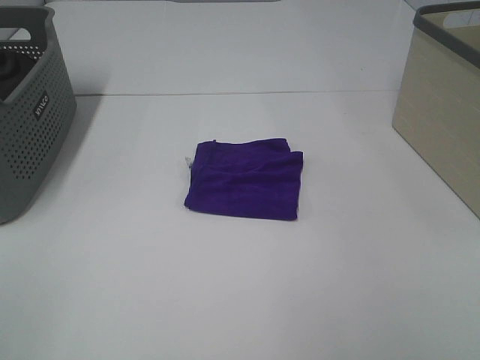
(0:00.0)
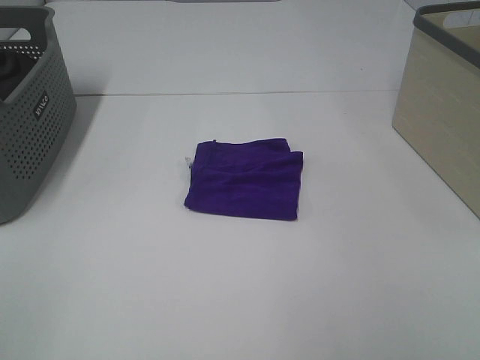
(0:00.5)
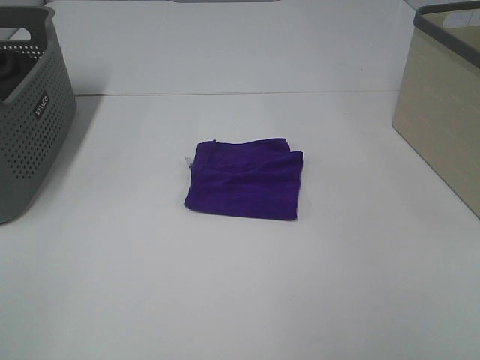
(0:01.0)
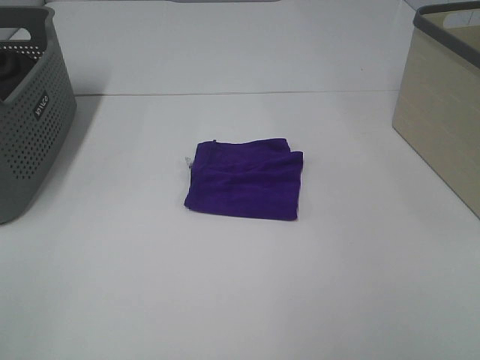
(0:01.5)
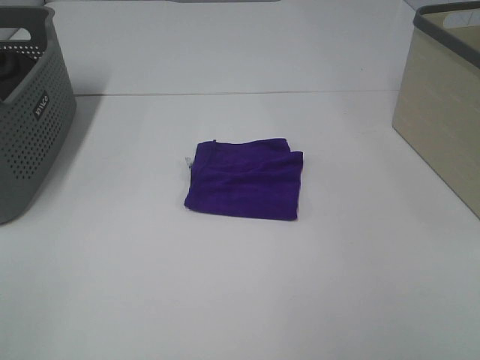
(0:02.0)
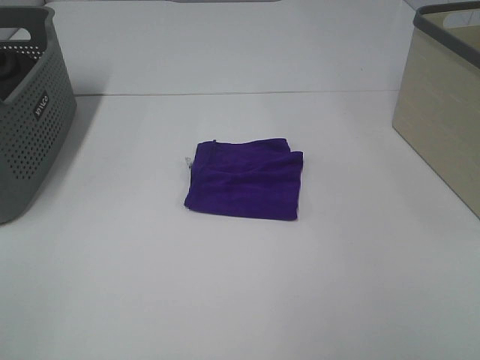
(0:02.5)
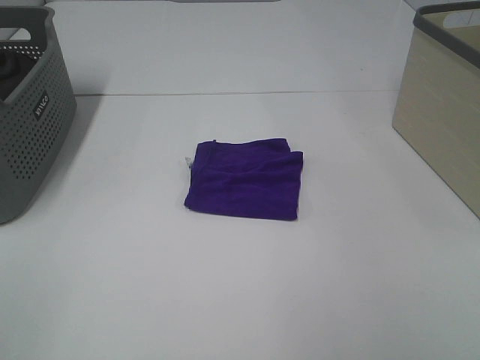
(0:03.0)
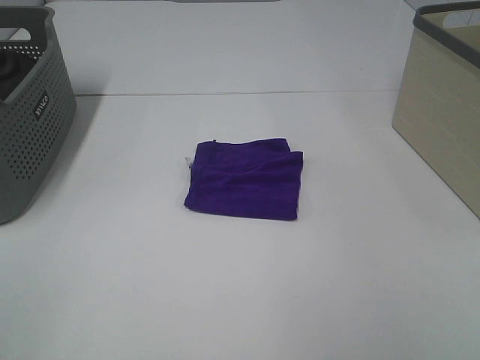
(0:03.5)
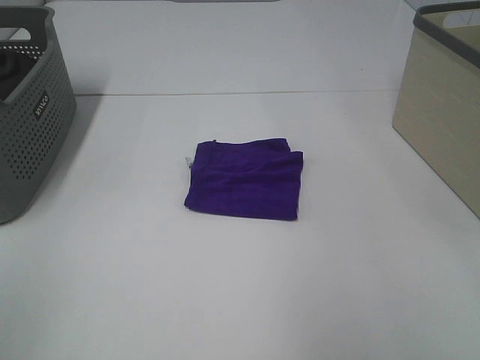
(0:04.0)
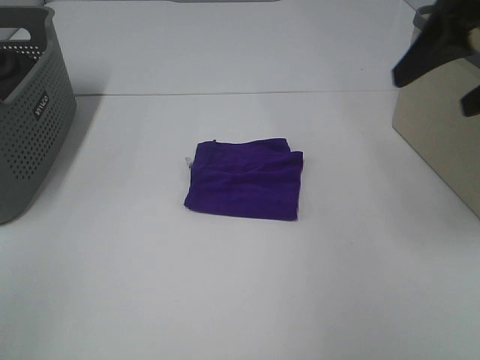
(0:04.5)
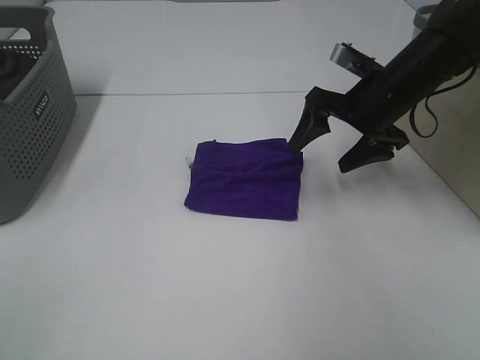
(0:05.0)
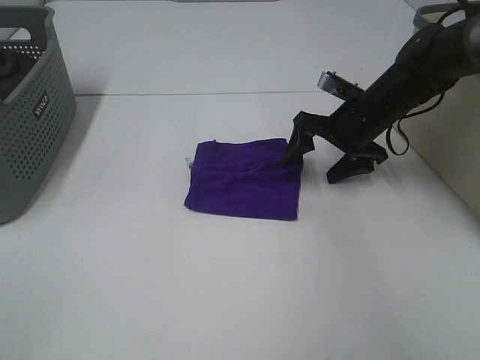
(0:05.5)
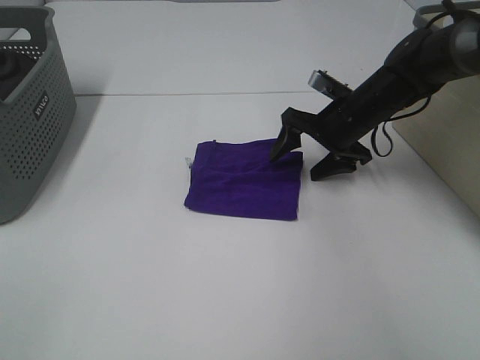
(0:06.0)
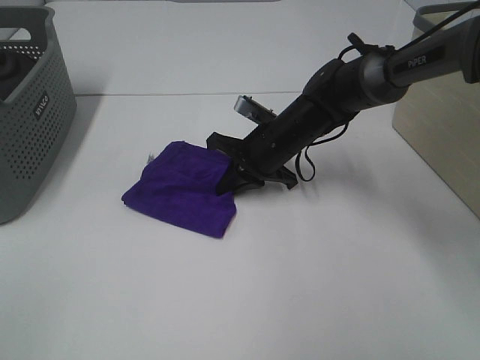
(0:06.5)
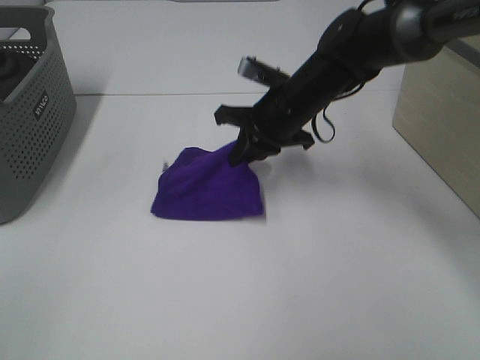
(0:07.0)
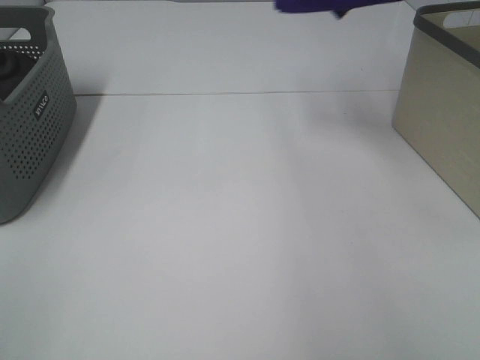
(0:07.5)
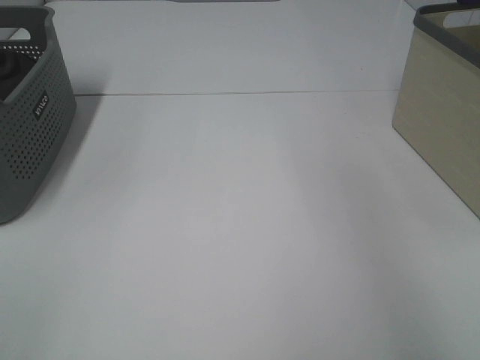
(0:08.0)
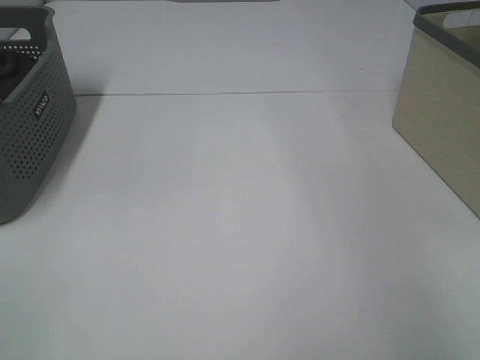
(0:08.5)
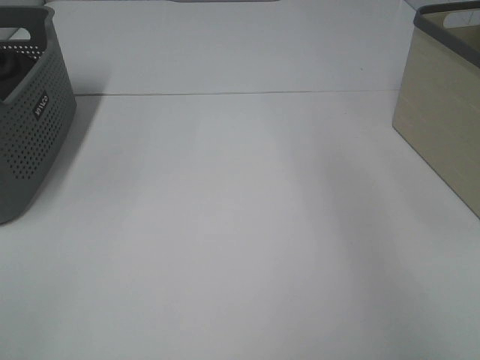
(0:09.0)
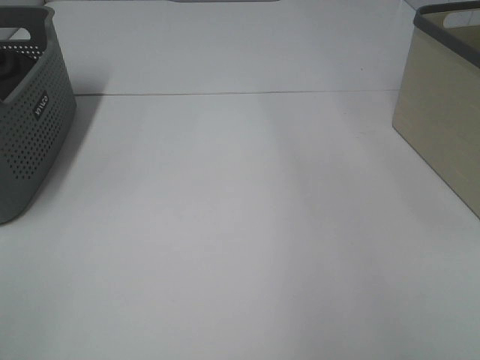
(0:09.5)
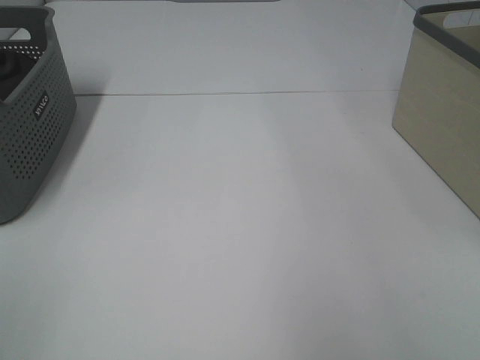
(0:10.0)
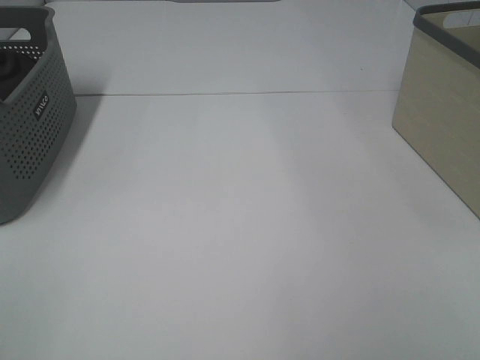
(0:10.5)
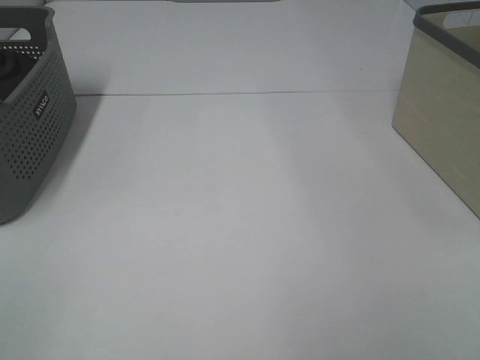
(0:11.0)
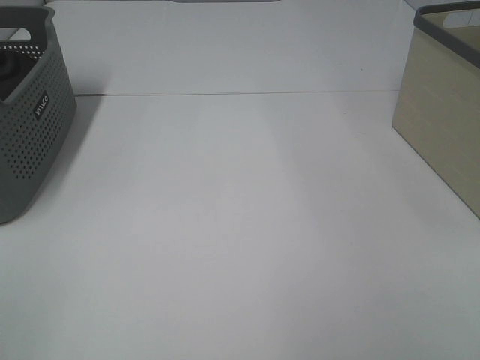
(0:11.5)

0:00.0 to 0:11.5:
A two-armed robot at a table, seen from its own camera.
Step, 0:00.0 to 0:06.5: Right hand: grab the folded purple towel.
Step, 0:07.0 to 0:08.5: Right hand: place the purple towel in right basket.
0:00.0 to 0:02.0: The two grippers keep their place.
0:04.0 to 0:06.0: The right gripper shifts approximately 40 cm downward and forward.
0:06.0 to 0:07.5: The right gripper goes approximately 35 cm upward, and closes its fingers.
0:07.5 to 0:09.5: The right gripper goes to the right and returns, roughly 15 cm each way, and opens its fingers.

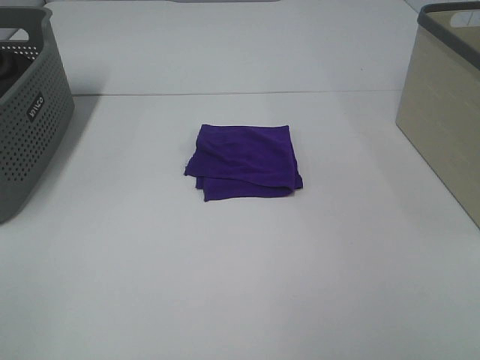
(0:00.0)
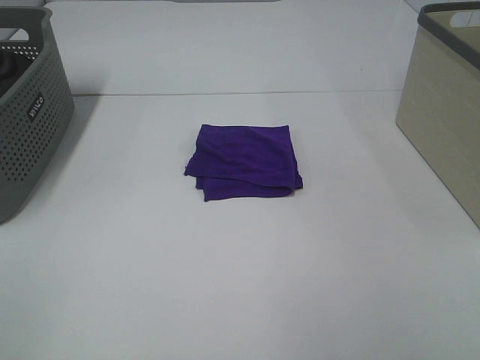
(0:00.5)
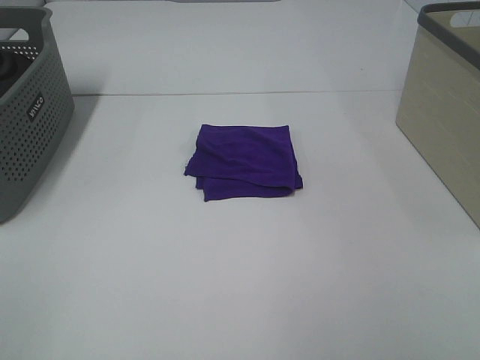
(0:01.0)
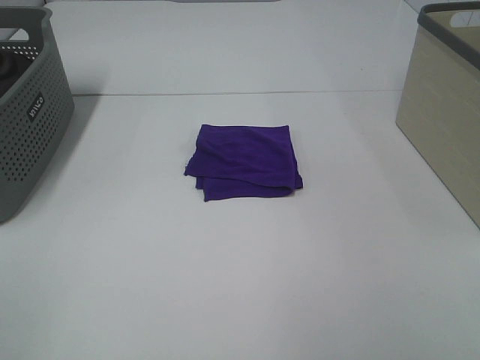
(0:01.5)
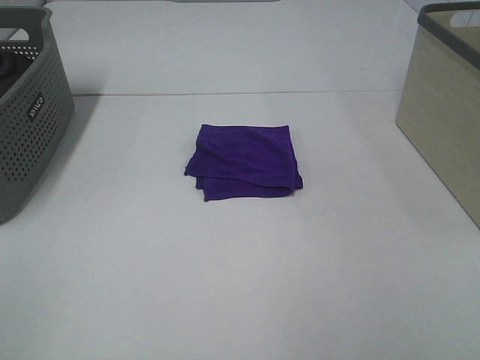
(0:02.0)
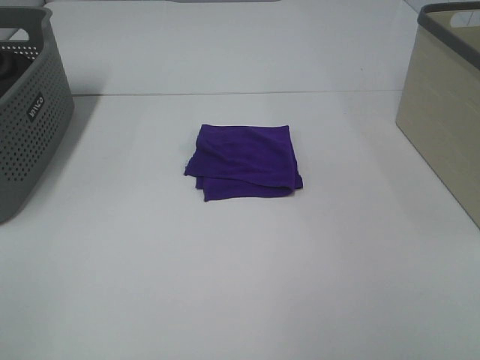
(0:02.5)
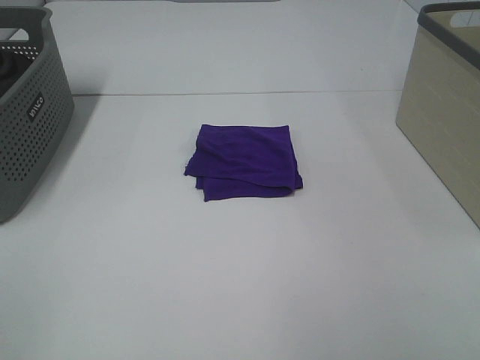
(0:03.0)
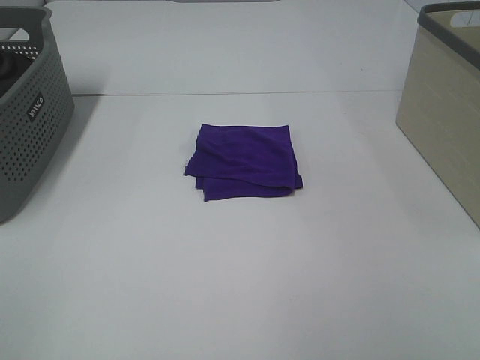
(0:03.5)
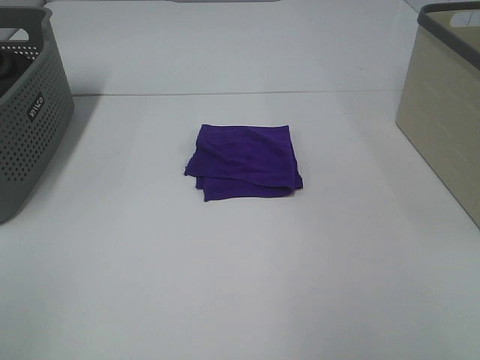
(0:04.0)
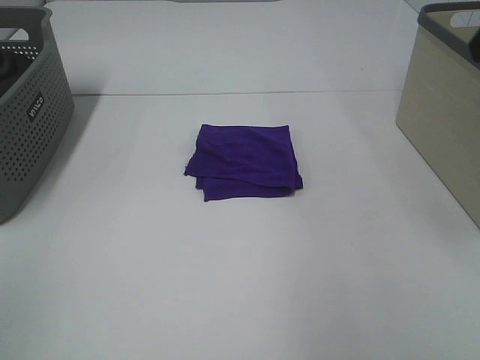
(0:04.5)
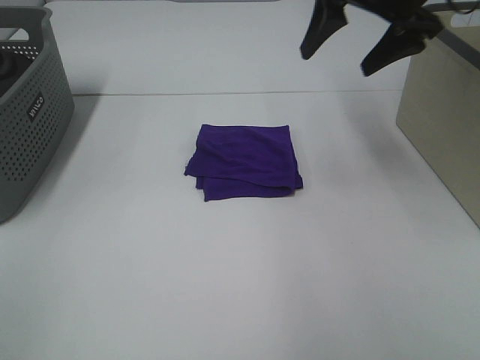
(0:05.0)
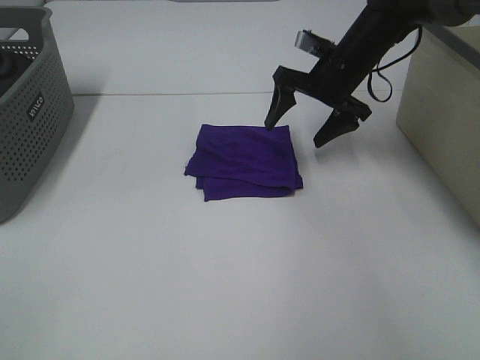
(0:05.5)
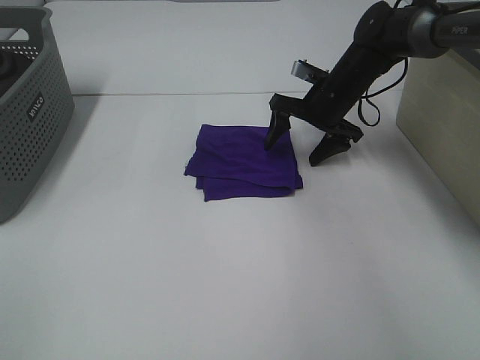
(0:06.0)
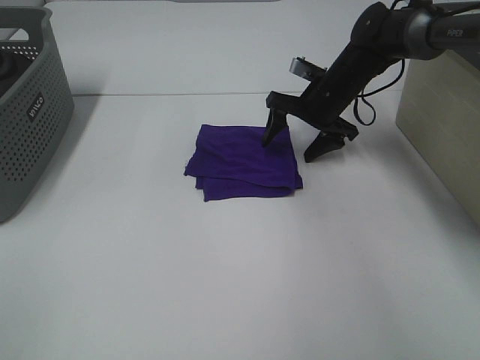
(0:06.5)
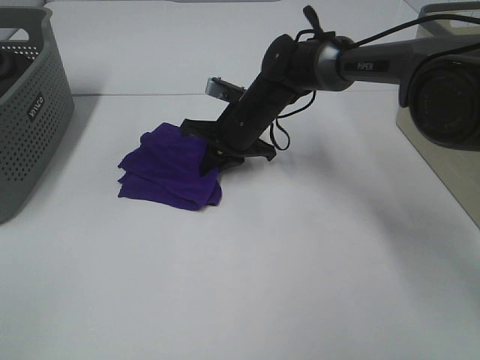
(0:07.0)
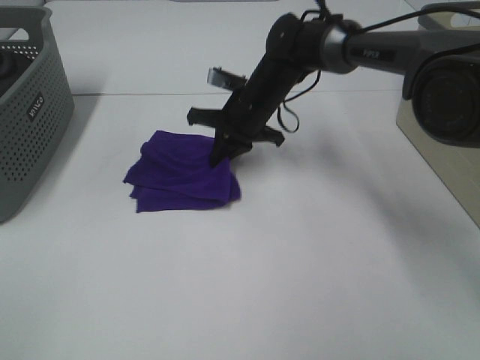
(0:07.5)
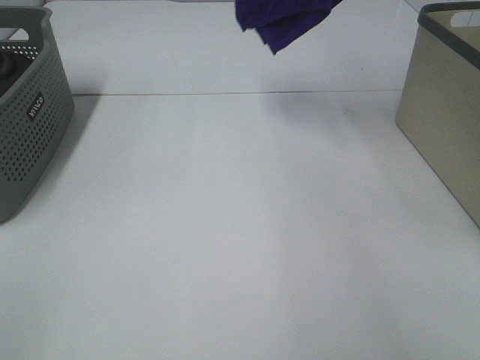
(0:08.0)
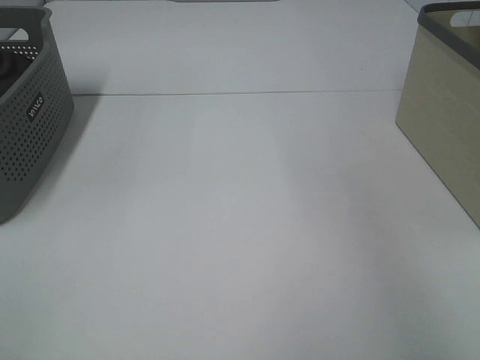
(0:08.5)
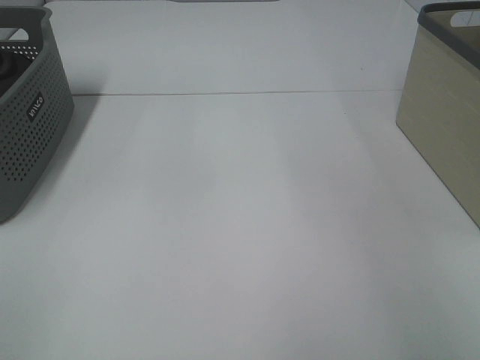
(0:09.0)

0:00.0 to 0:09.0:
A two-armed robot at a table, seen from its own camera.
Step, 0:00.0 to 0:07.0: Right hand: grab the folded purple towel.
0:00.0 to 0:02.0: Neither gripper changes place.
0:04.5 to 0:07.0: The right gripper goes roughly 40 cm downward, to the left and forward, and closes up.
0:07.0 to 0:09.0: The right gripper shifts some 50 cm to the right and upward, and opens.

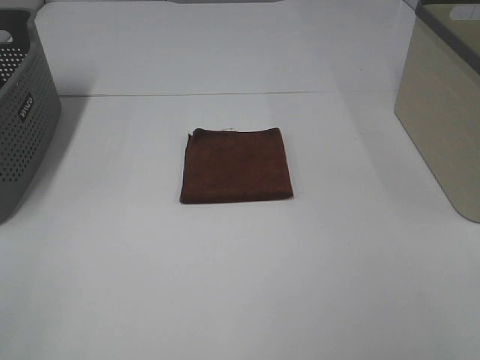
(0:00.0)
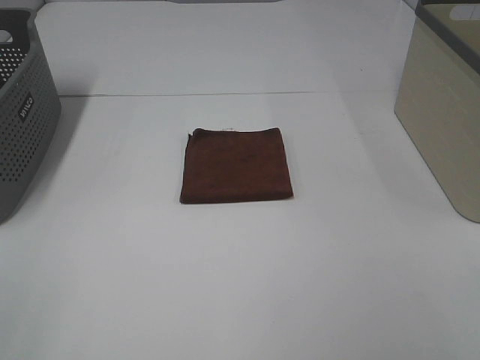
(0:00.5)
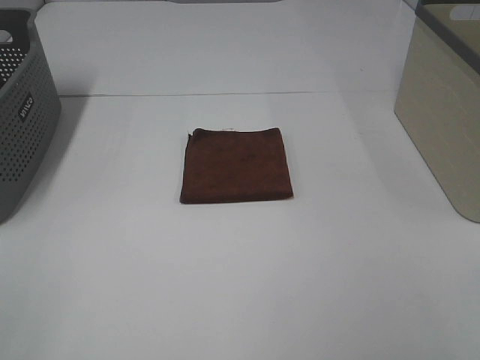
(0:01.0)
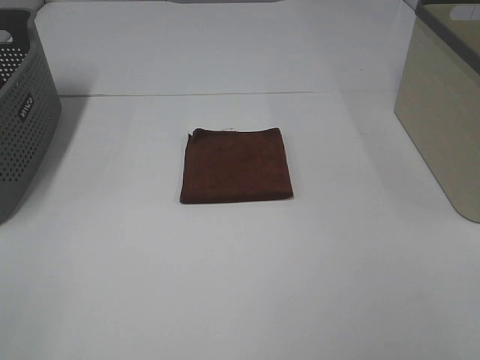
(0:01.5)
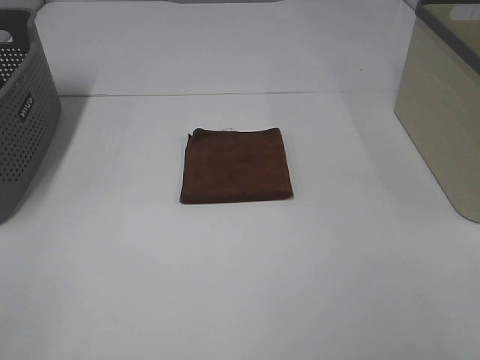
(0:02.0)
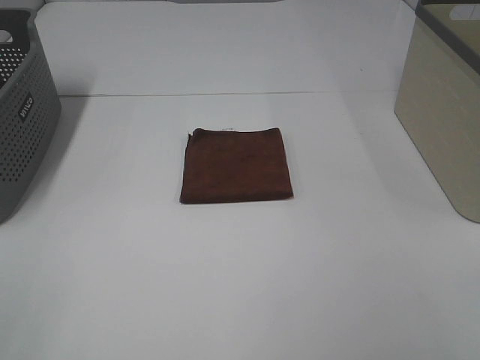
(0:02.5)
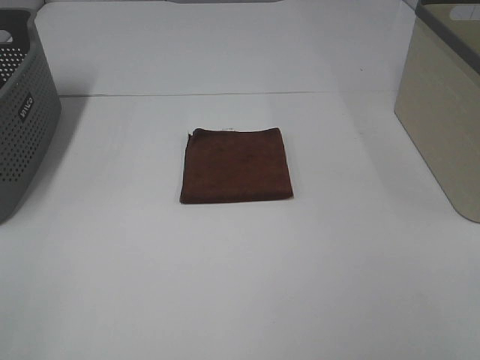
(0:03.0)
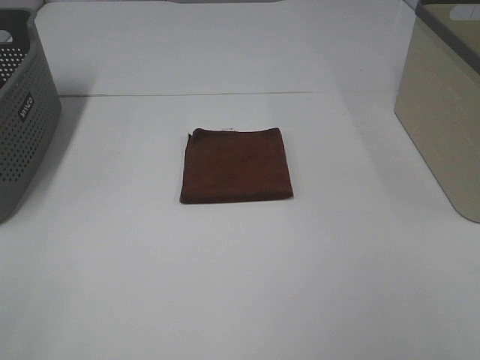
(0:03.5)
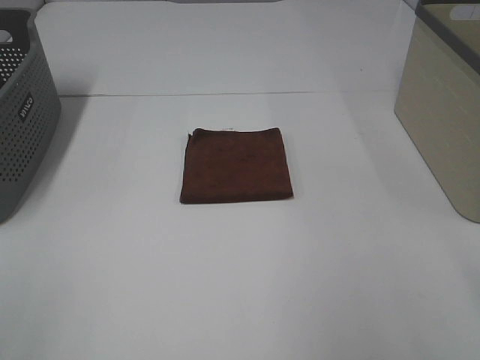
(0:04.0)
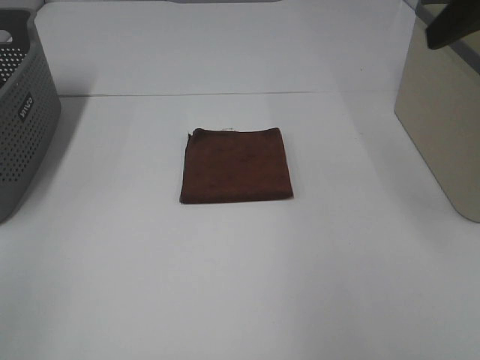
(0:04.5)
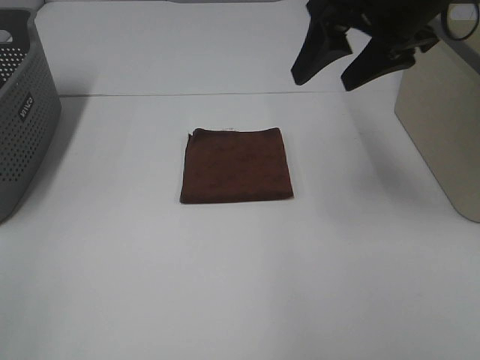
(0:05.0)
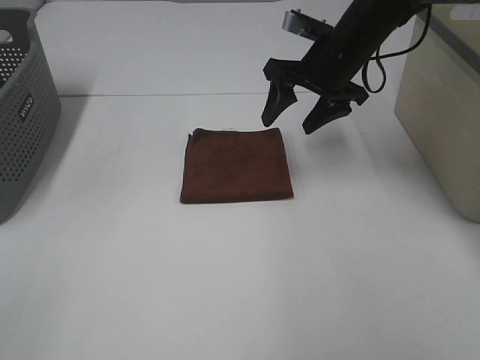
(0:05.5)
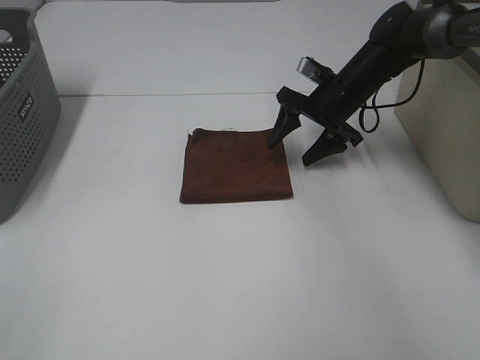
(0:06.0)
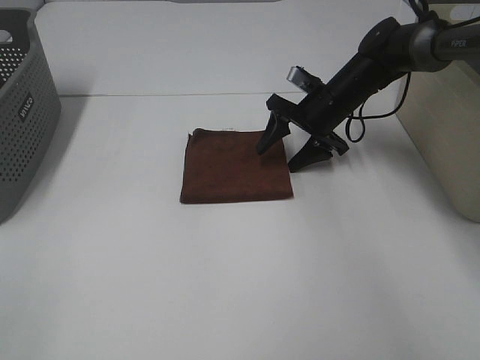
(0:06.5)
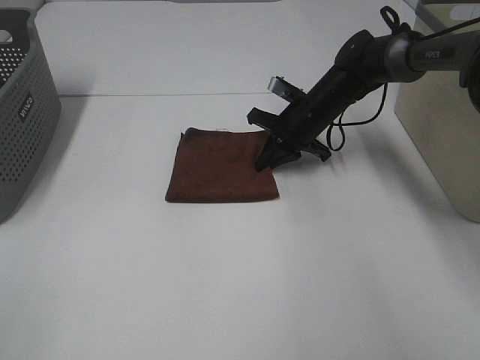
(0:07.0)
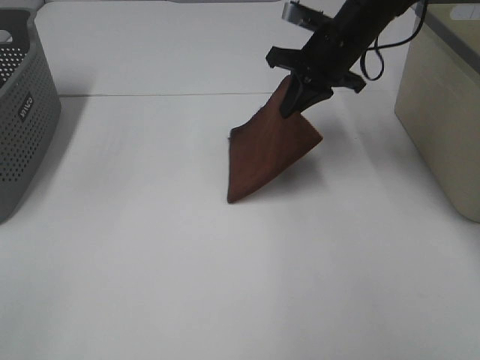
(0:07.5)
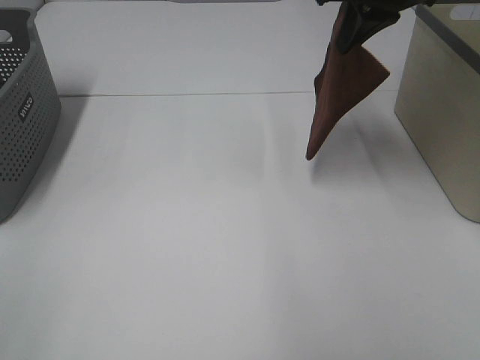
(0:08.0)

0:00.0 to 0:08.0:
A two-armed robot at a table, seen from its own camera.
Step, 0:00.0 to 0:07.0: Right hand: grab the folded brown towel.
0:00.0 to 0:02.0: The two grippers keep their place.
0:04.0 to 0:06.0: The right gripper is displaced forward and downward by roughly 40 cm.
0:06.0 to 0:08.0: The right gripper is displaced upward by about 20 cm, and closes.
